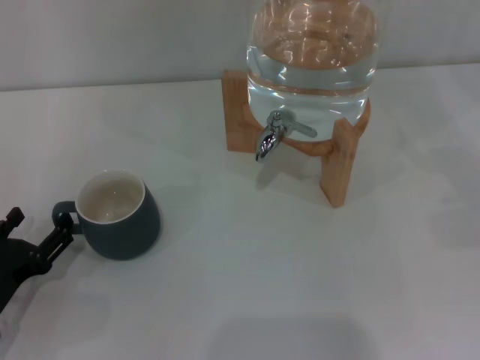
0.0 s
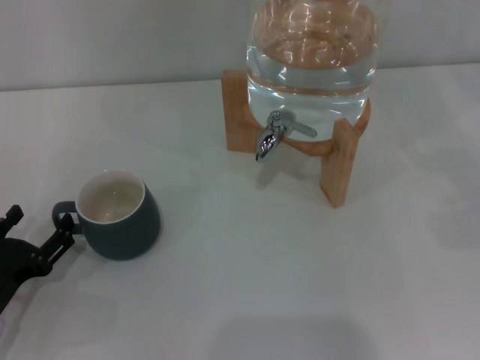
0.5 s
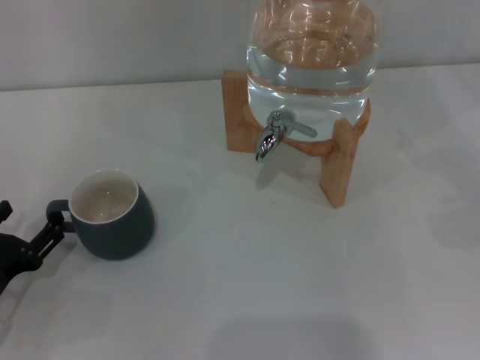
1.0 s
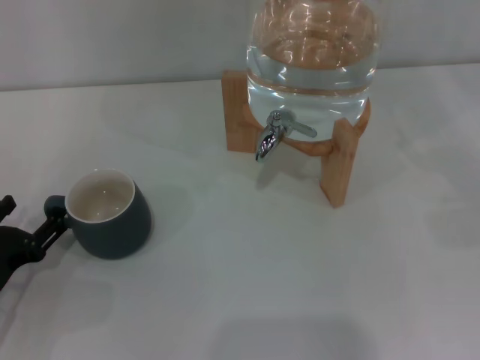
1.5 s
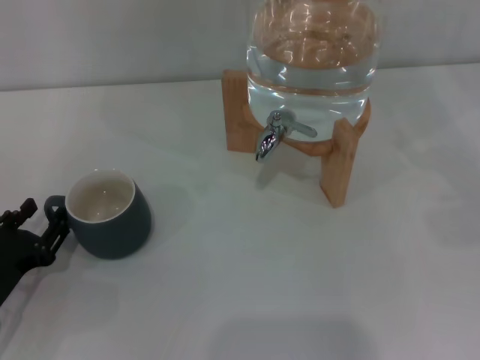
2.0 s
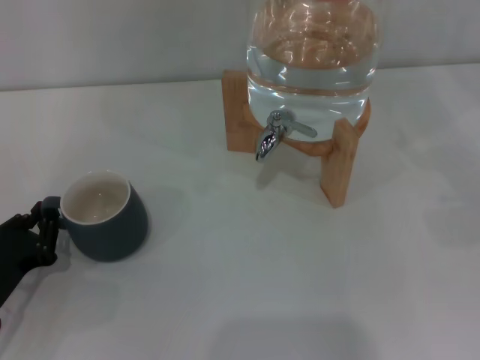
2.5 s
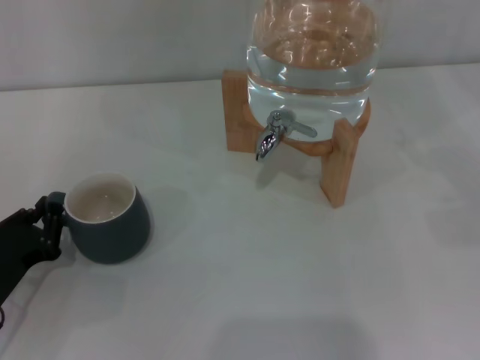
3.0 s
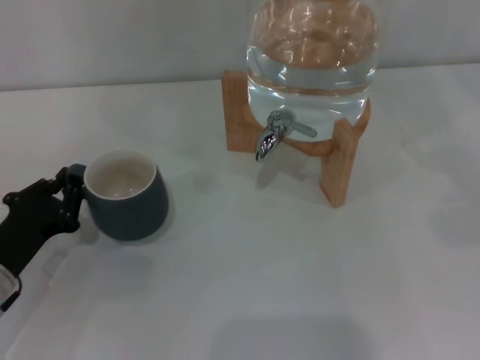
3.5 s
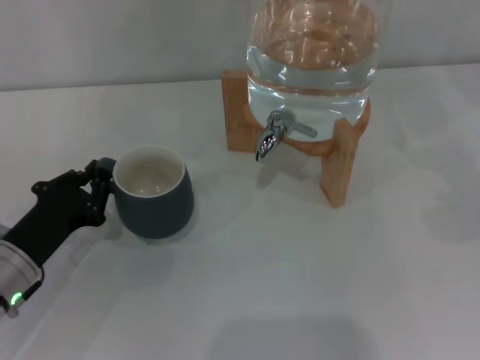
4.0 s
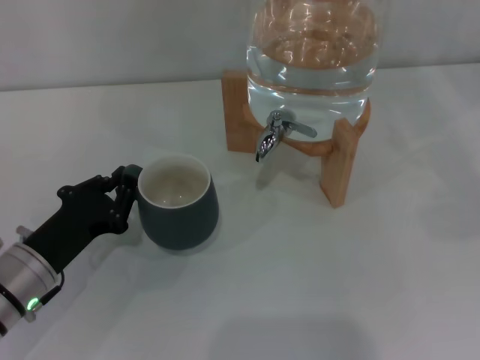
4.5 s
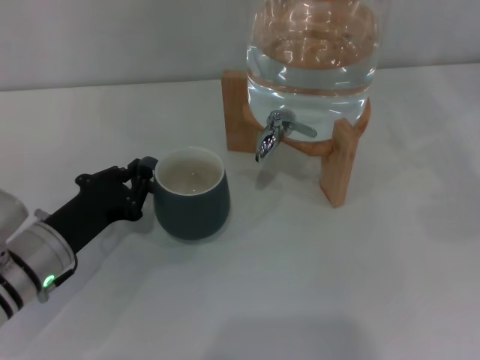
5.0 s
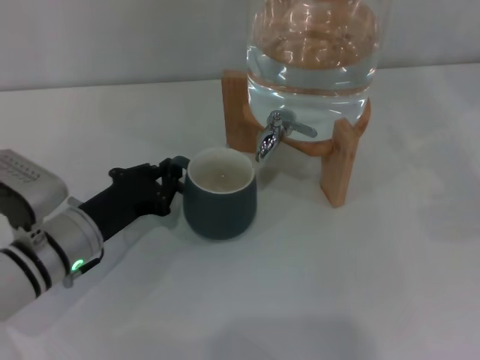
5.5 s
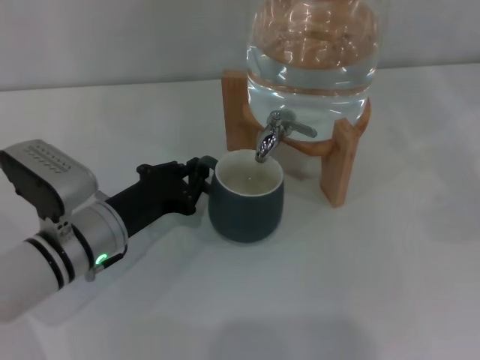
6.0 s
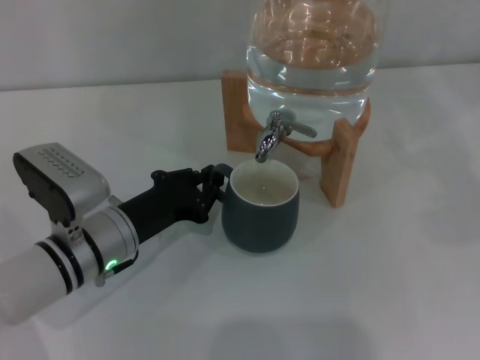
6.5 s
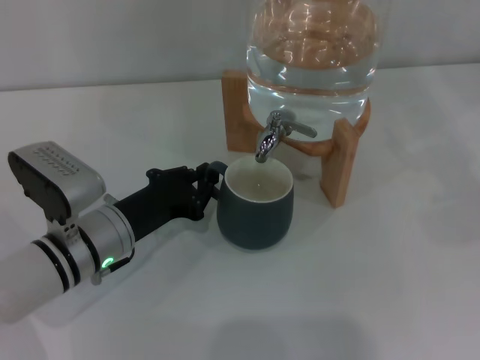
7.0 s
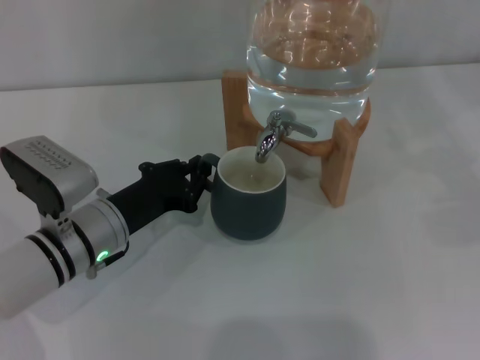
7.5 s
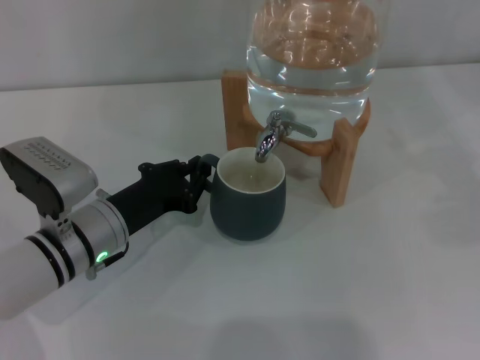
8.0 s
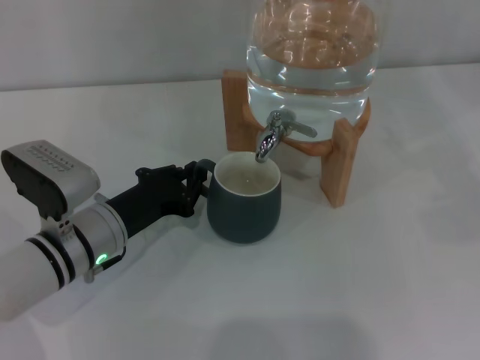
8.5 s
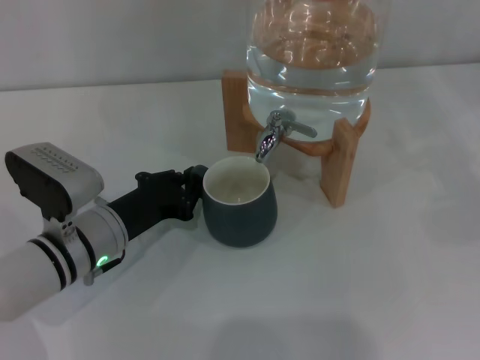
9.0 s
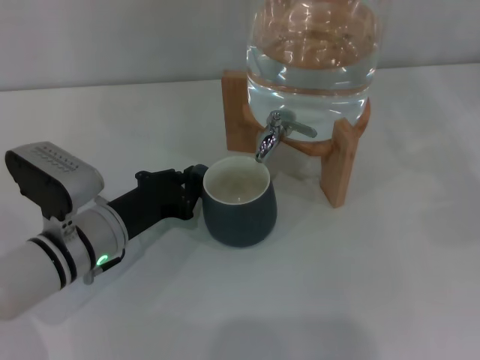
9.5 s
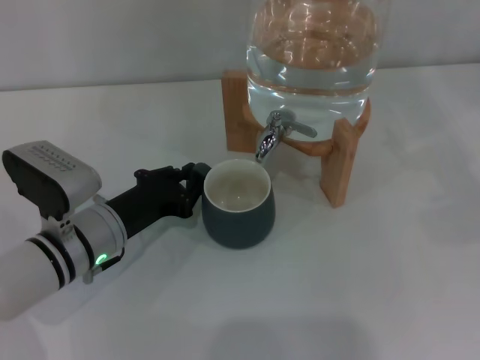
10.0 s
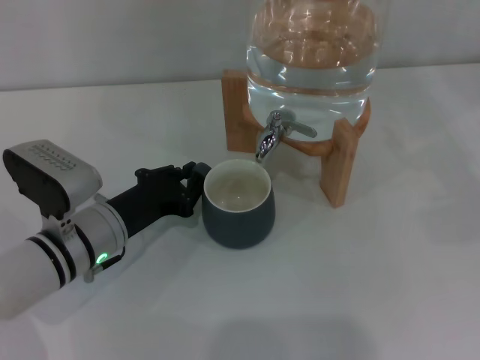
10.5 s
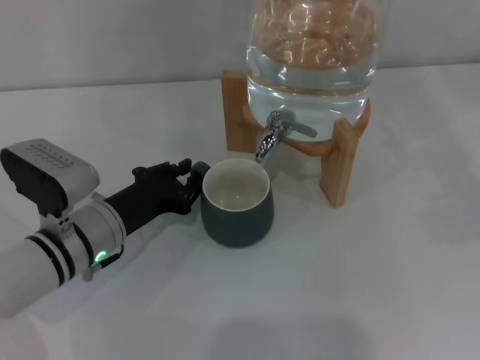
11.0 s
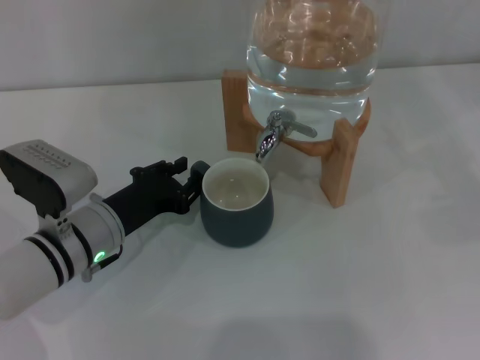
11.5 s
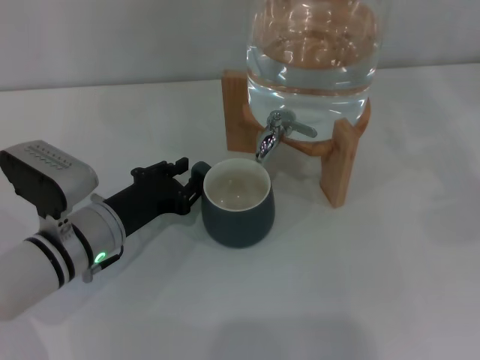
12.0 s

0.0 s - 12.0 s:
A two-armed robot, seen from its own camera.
Task of the whole recording: the left gripper pick up the black cup and place it horizontally under the faucet, the right gripper turn on the faucet to fill the cup, and then turn off the faucet.
0.0 s - 2.0 s: There are only small adjustments of the grippers.
2.0 s - 4.0 s: The left gripper ends up approximately 5 cm from where it was, and closes up.
4.0 s - 6.0 s: The left gripper is displaced to the right by roughly 10 cm.
6.0 s - 12.0 s: The two grippers keep their place.

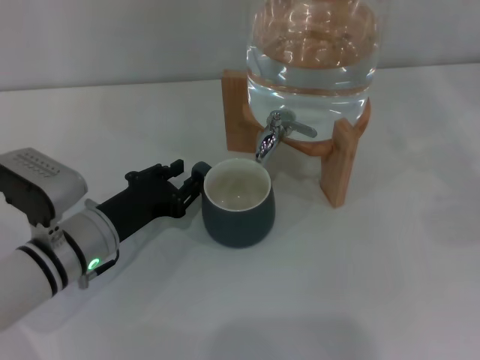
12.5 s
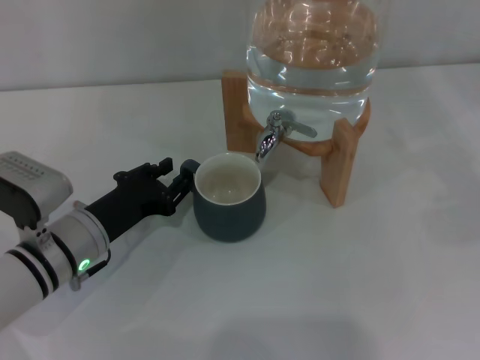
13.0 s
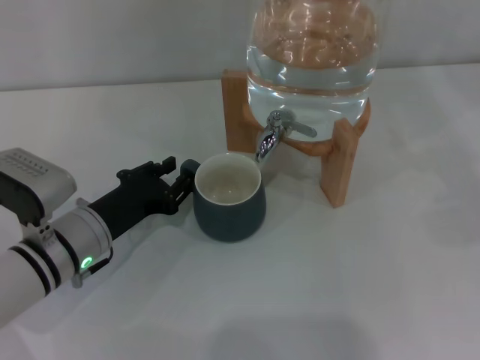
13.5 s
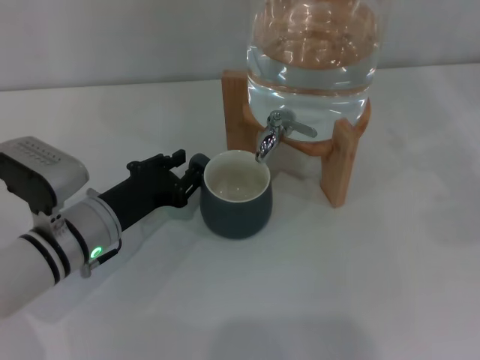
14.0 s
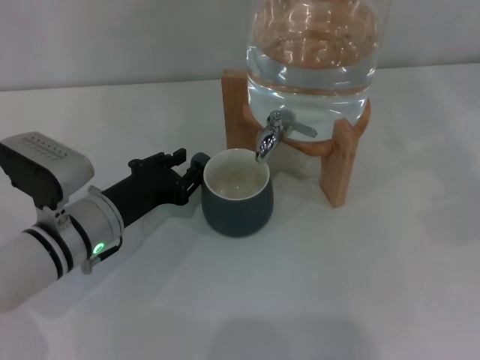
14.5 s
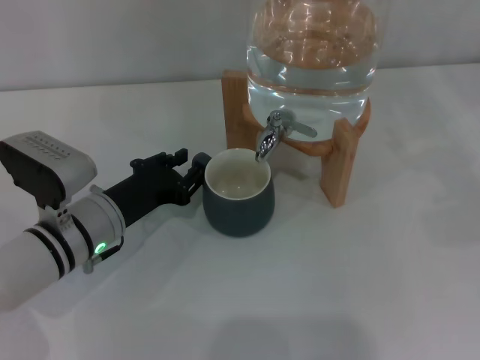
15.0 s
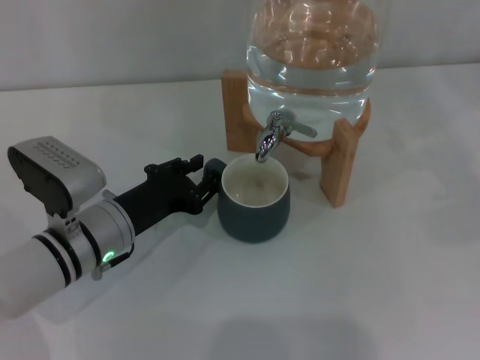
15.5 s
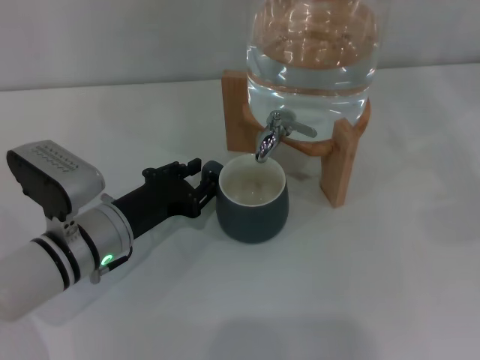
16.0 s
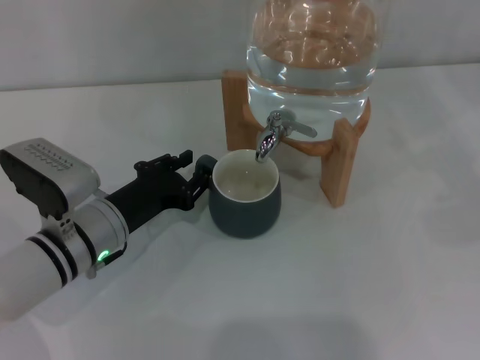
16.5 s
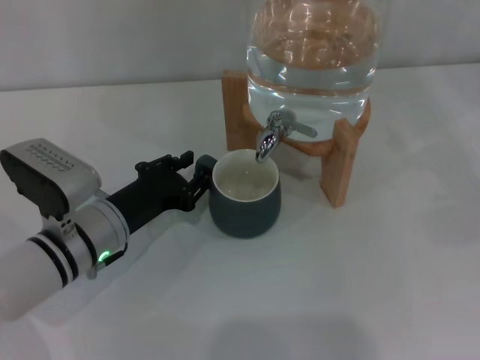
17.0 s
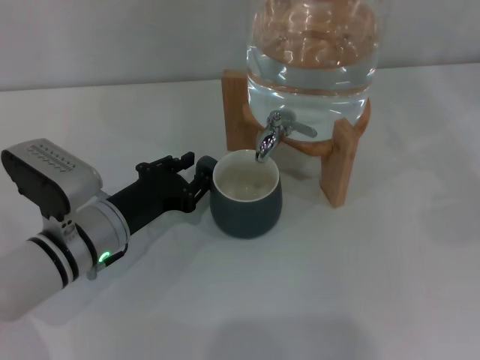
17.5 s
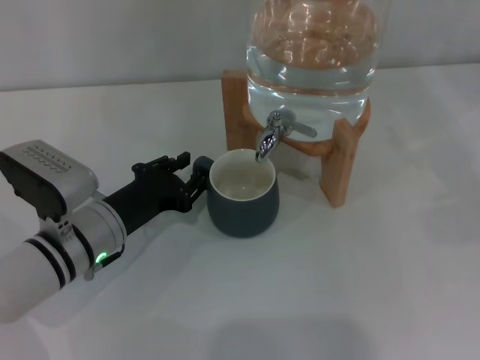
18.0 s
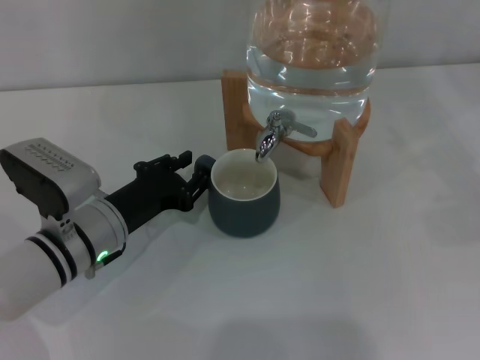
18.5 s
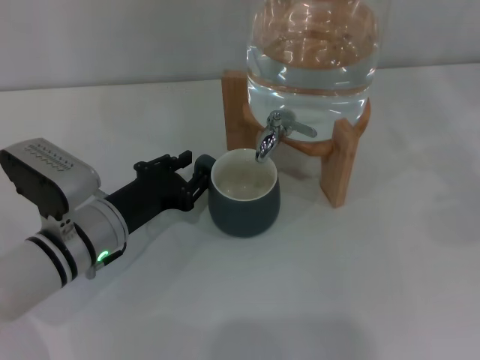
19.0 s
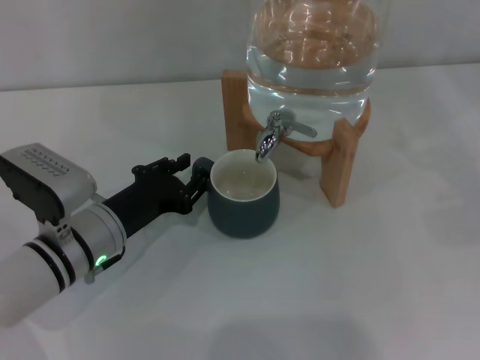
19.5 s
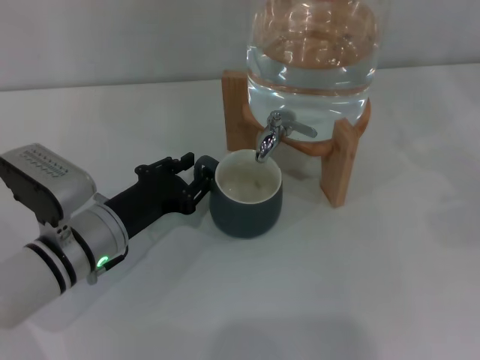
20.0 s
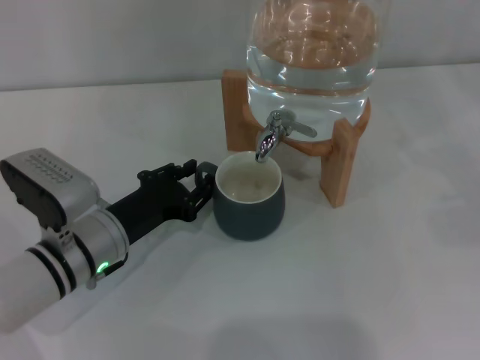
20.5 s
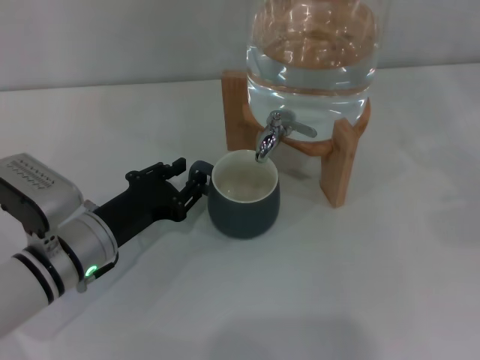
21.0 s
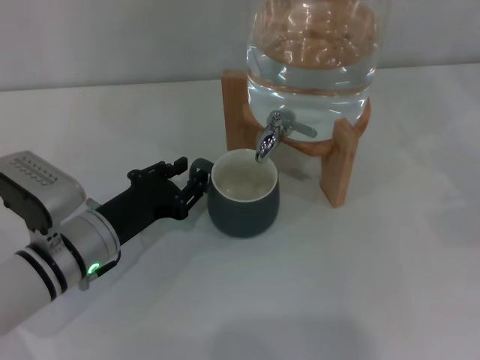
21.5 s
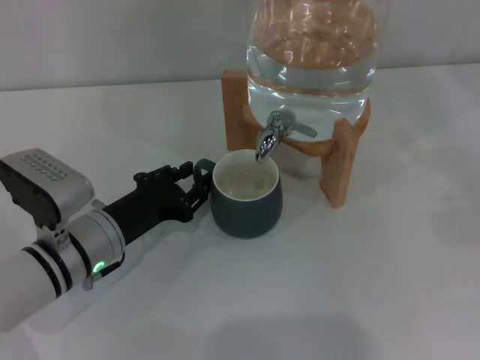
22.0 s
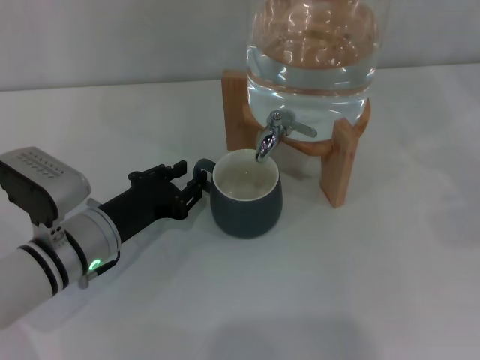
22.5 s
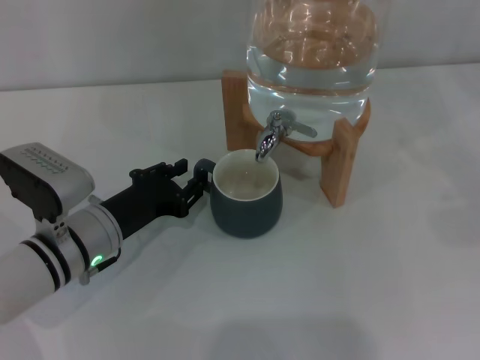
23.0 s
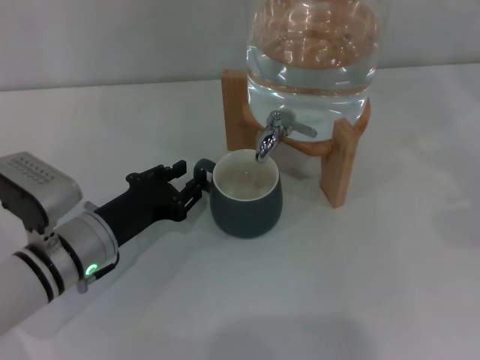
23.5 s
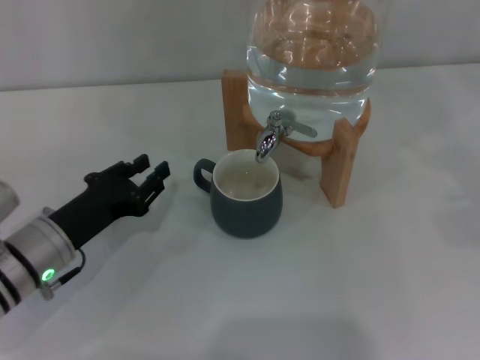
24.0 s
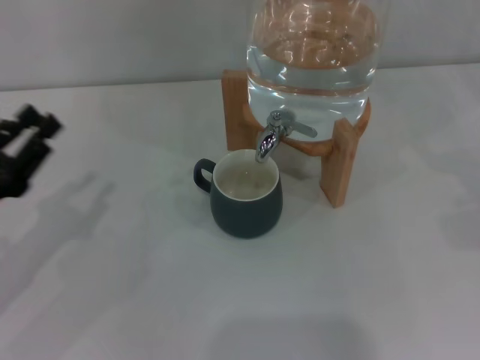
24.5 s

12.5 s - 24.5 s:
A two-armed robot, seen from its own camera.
Task of the whole recording: the left gripper pick up the black cup and place it horizontally under the faucet, the right gripper turn on the faucet to fill the cup, and then turn off the faucet.
Step, 12.5 s - 23.5 s: Move the cup beneath the water dispenser nozzle with the left gripper.
12.5 s - 14.5 s: The grippers move only a little.
14.5 s - 18.5 s: Both grippers stay put.
18.5 s - 20.5 s: Neither gripper changes place.
20.5 s - 22.5 s: Both grippers stay put.
22.5 s - 24.5 s: The left gripper goes some 15 cm to the left, upward and backward.

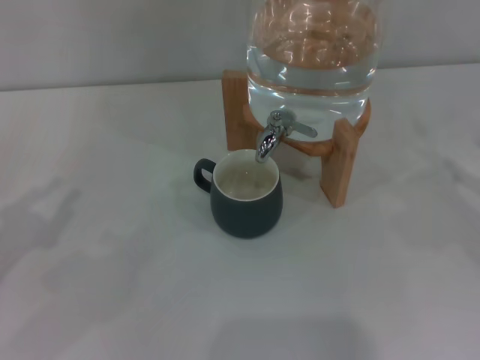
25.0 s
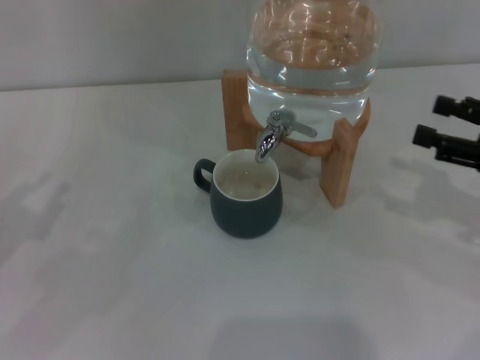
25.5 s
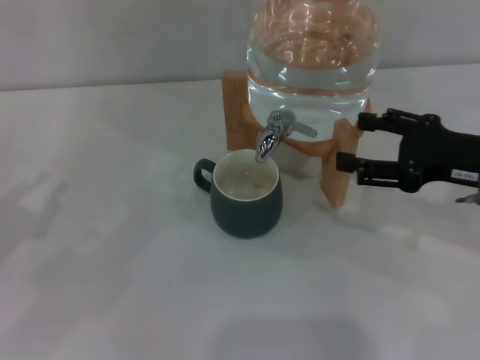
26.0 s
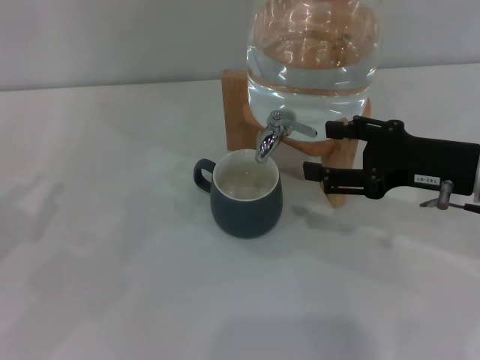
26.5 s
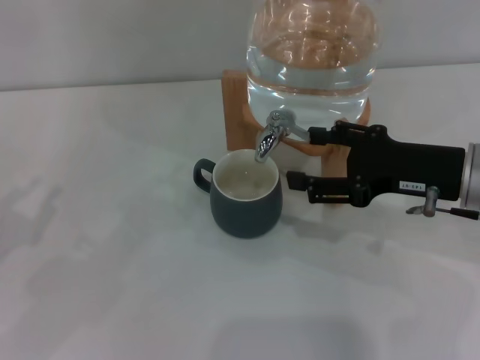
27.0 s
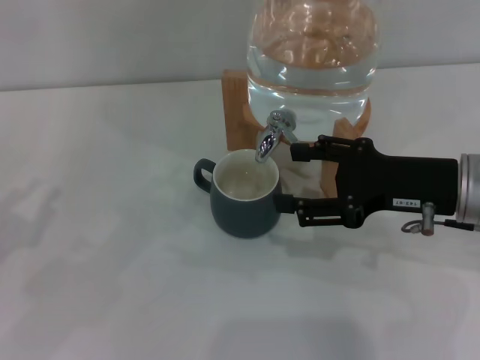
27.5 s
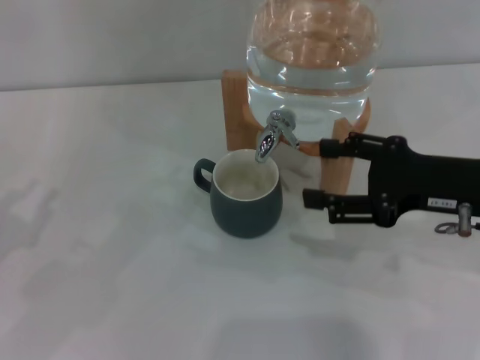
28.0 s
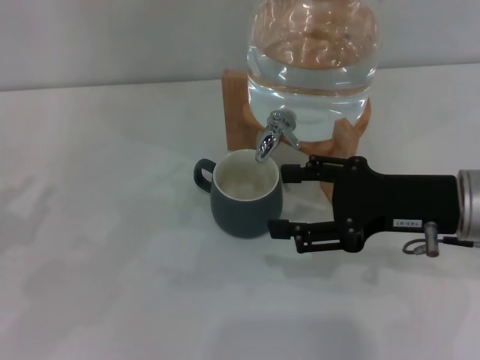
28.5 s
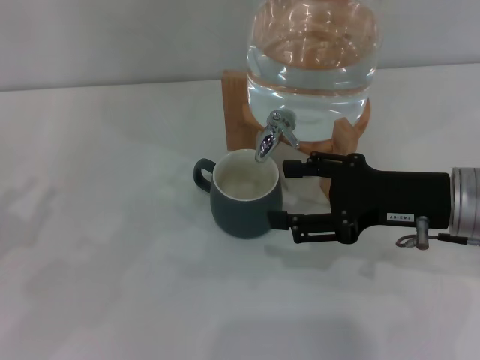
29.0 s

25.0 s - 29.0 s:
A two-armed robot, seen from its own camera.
Task of the whole recording: the left gripper pick up the black cup and place it horizontally under the faucet, the right gripper turn on the faucet to fill the cup, and then turn off the faucet.
Step, 25.0 s - 27.5 s: Open the dispenser valve and fill the cup with water with the right gripper.
25.0 s - 27.0 s: The right gripper travels to the left by approximately 15 cm.
27.0 s - 29.0 s: The grippers move only a little.
